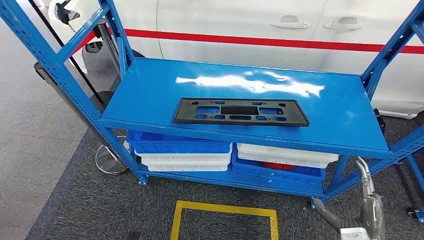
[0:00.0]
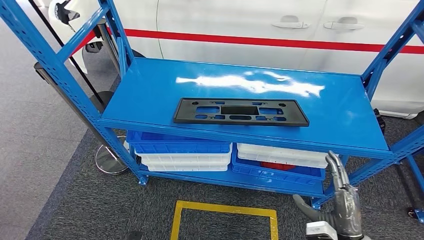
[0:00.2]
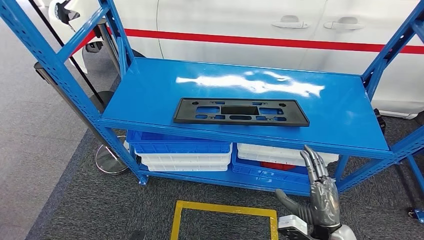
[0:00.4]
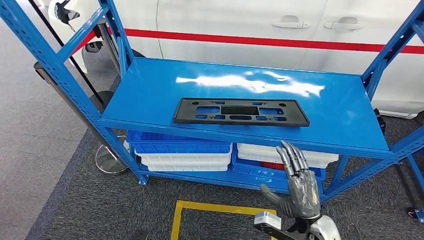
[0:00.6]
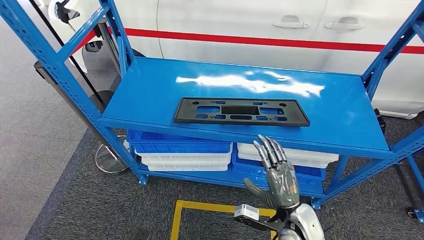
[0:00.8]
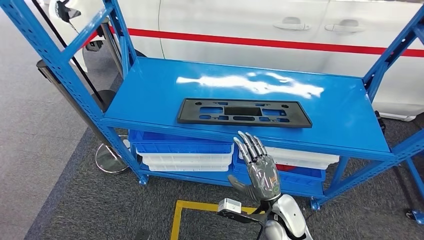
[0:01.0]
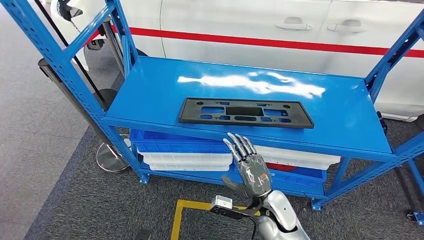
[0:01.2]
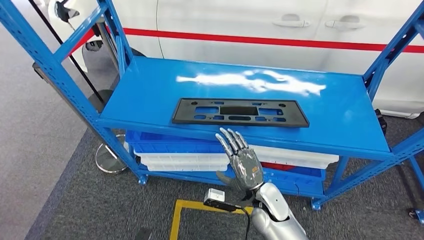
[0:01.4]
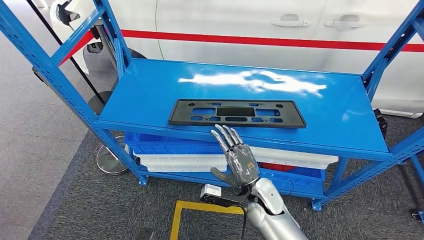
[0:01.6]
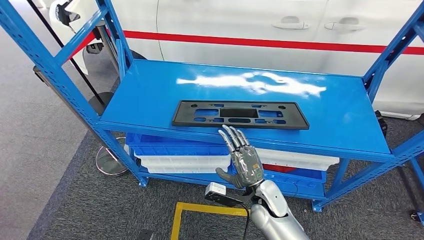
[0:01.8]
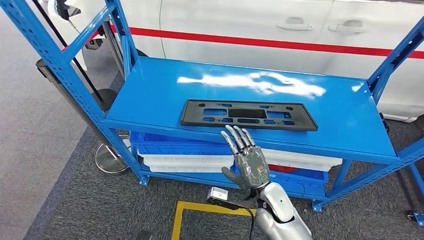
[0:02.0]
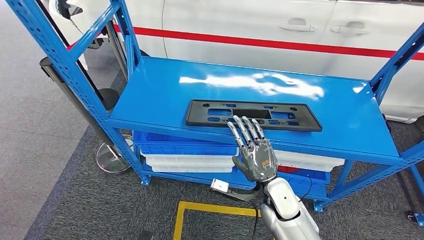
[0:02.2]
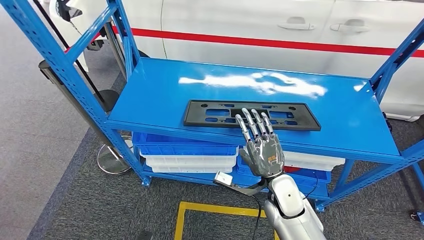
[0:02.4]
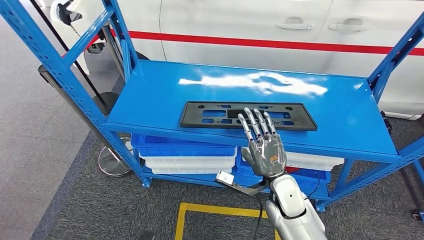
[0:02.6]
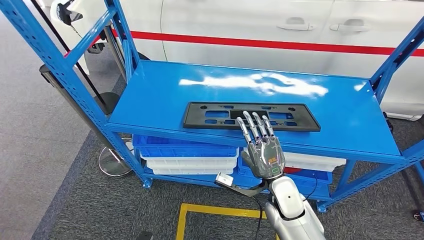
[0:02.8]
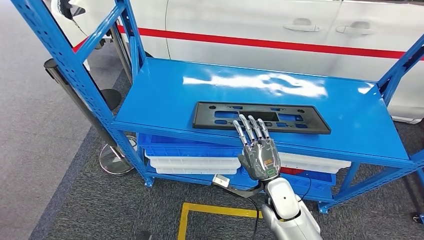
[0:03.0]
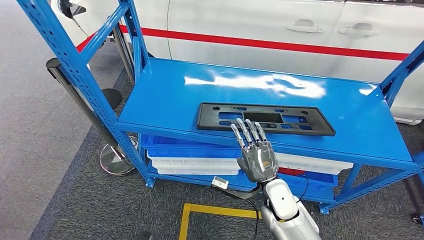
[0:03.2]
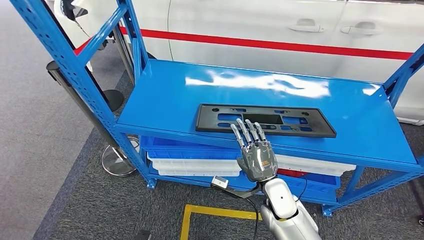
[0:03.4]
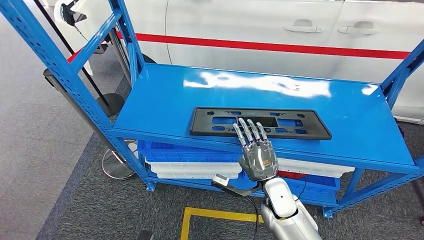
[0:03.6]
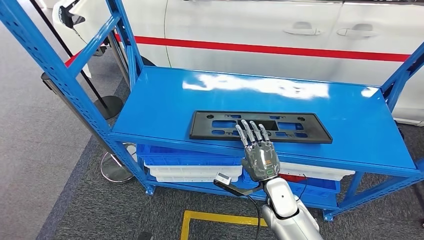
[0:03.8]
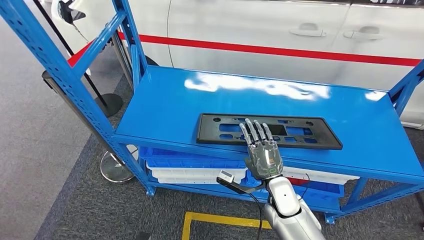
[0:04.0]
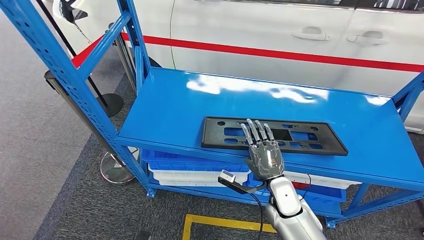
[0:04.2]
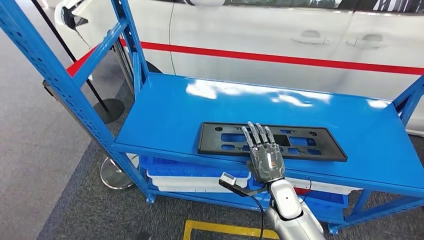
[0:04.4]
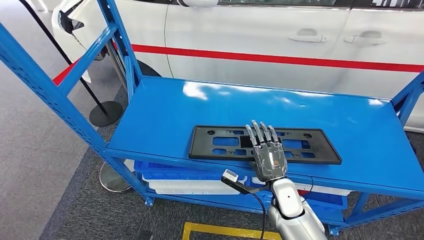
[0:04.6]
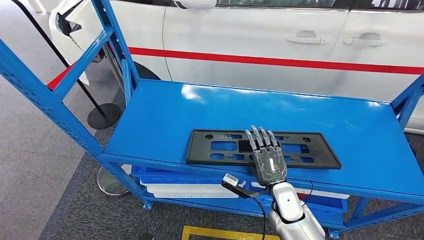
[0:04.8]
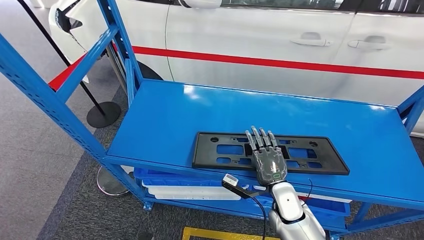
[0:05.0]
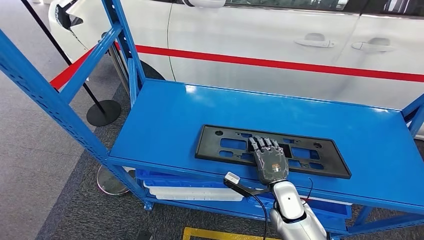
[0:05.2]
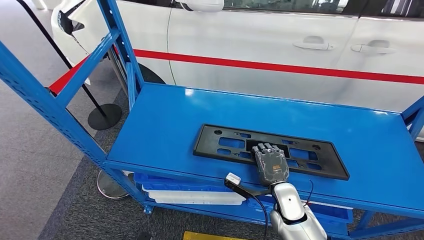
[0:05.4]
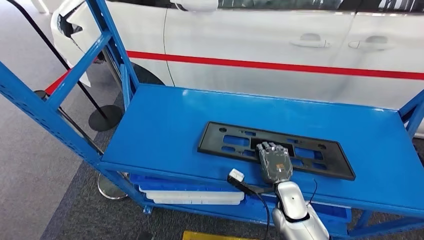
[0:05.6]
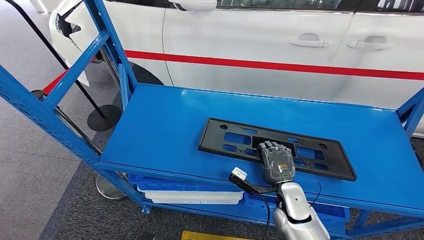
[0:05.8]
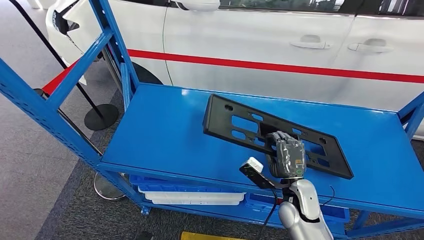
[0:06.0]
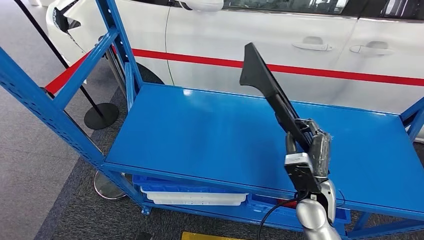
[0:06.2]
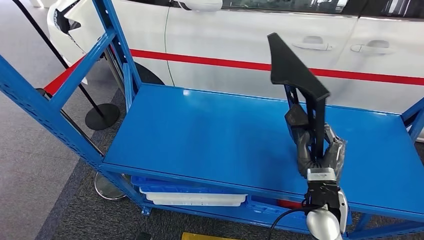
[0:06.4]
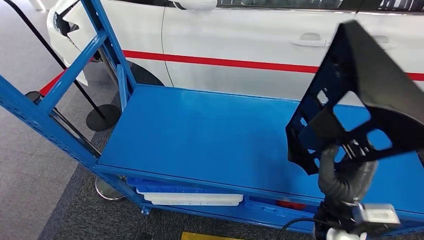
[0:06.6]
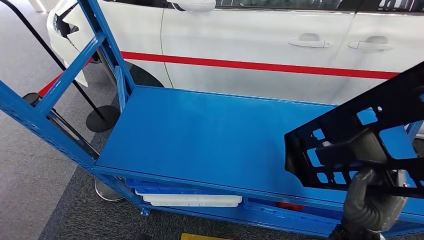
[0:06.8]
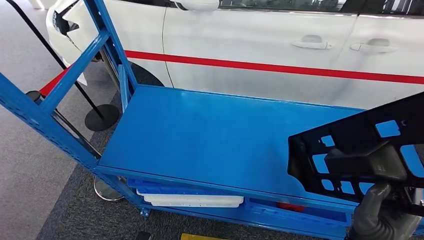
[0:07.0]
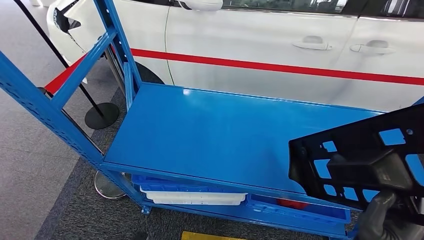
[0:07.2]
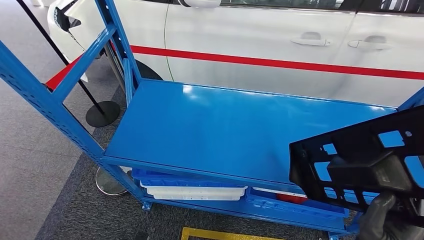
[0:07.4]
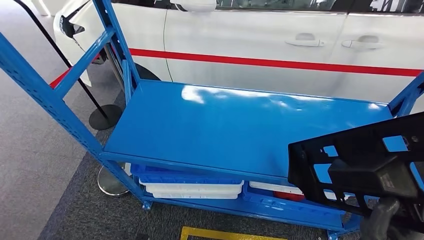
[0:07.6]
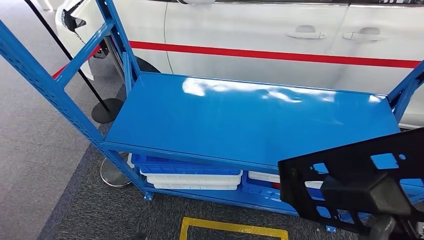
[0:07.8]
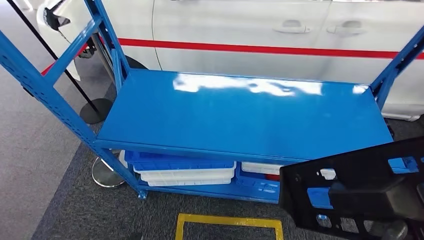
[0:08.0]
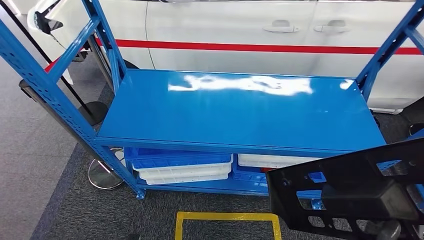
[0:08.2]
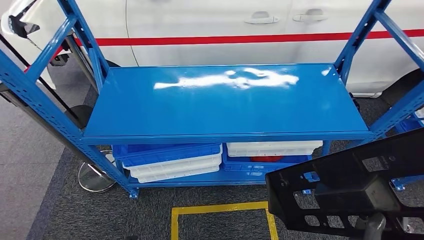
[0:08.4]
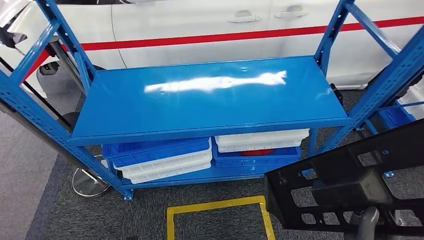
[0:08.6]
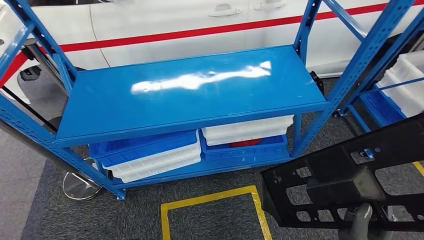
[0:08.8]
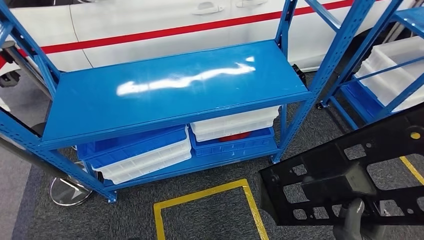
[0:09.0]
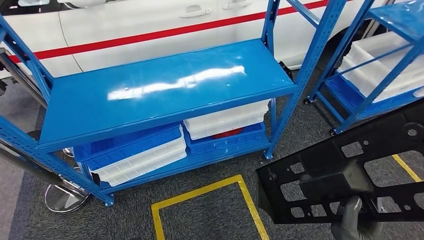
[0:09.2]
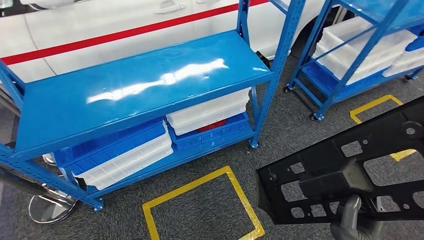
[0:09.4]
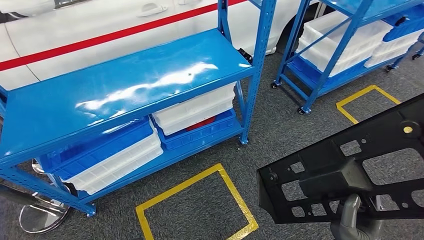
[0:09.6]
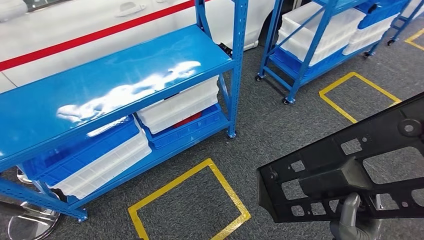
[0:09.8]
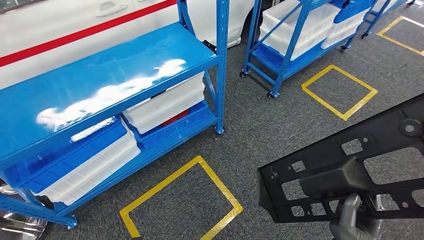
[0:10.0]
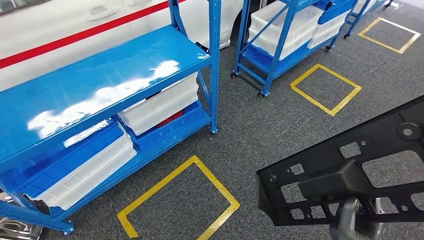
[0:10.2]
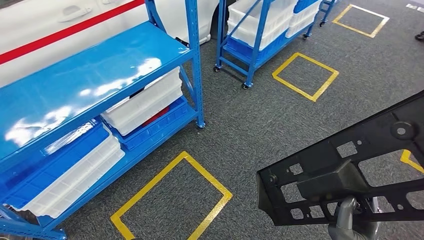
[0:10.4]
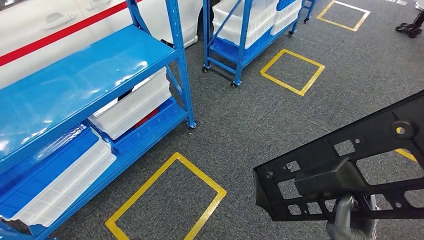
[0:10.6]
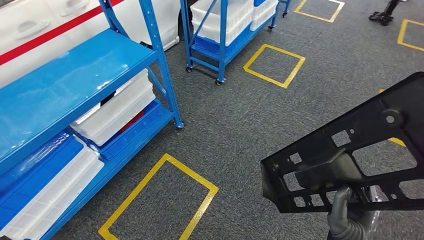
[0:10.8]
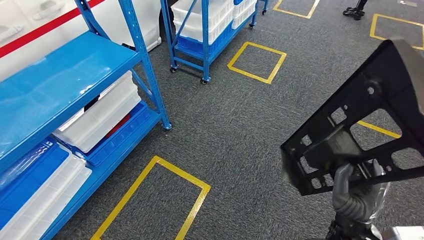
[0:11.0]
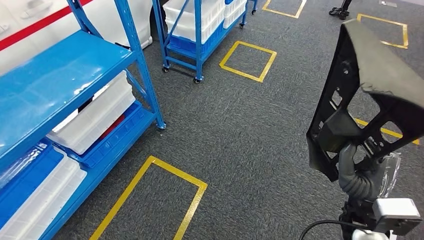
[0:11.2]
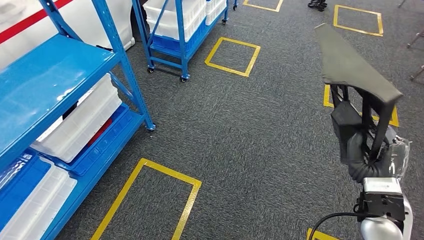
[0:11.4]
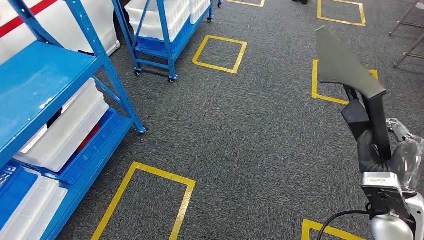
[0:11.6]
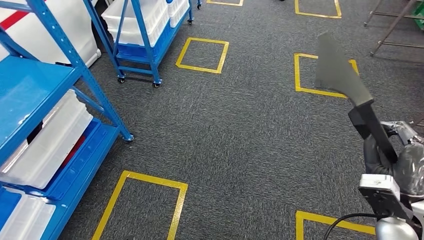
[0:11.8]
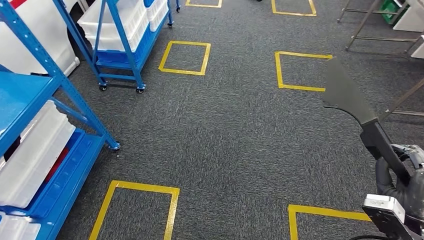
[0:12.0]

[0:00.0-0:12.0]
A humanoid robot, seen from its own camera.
Step, 0:00.0 to 0:09.6: Pick up the large parts from the shelf.

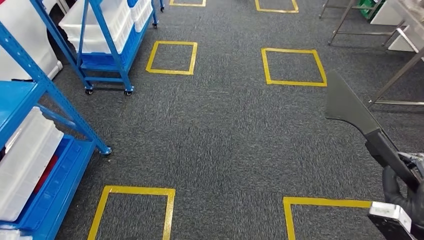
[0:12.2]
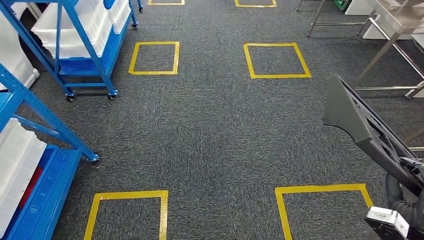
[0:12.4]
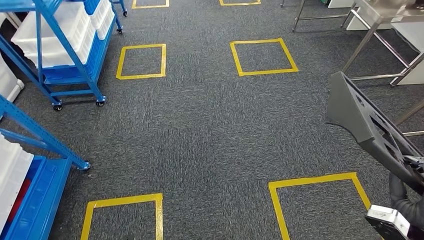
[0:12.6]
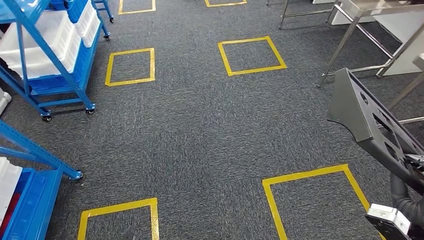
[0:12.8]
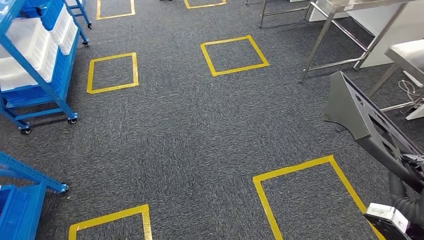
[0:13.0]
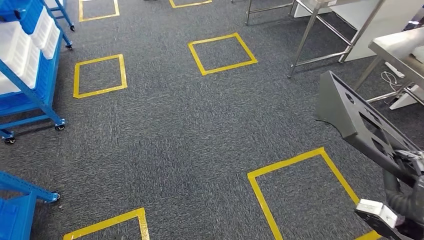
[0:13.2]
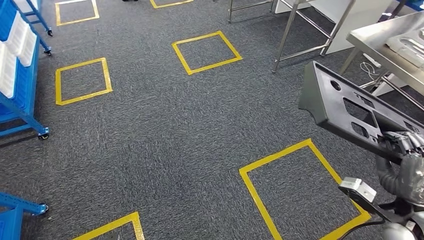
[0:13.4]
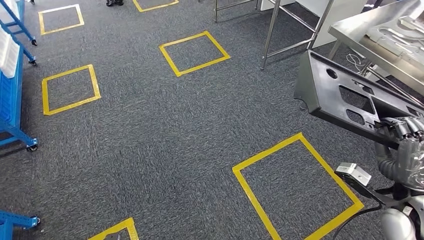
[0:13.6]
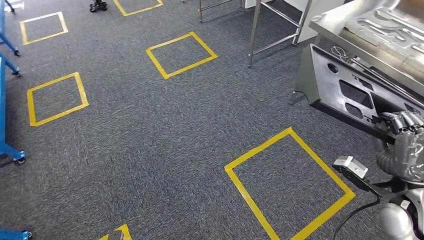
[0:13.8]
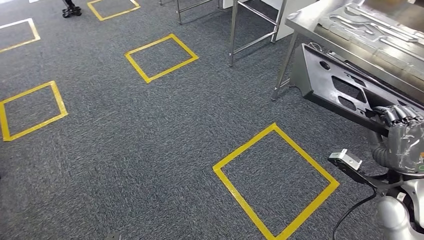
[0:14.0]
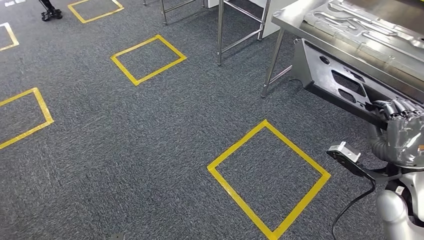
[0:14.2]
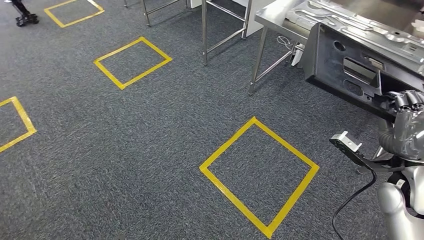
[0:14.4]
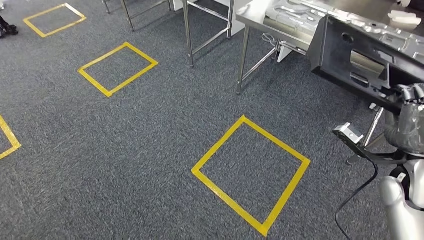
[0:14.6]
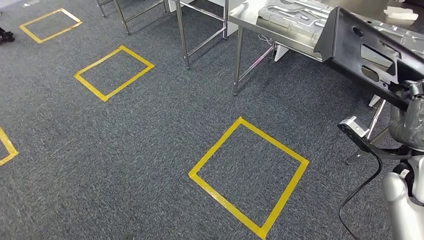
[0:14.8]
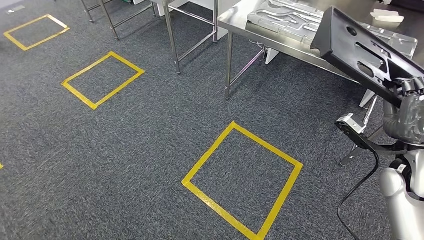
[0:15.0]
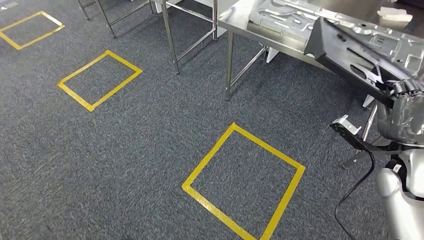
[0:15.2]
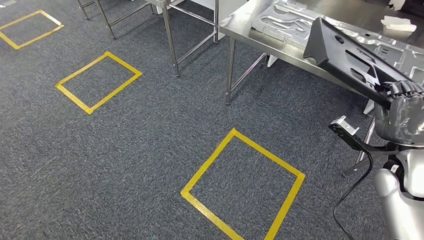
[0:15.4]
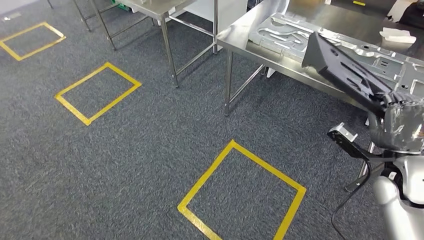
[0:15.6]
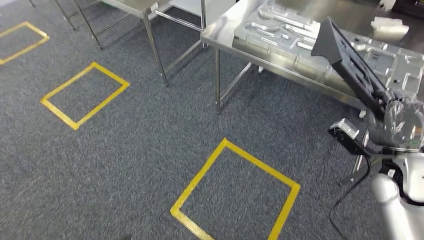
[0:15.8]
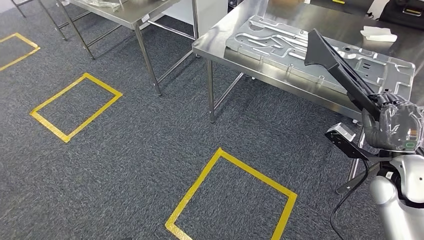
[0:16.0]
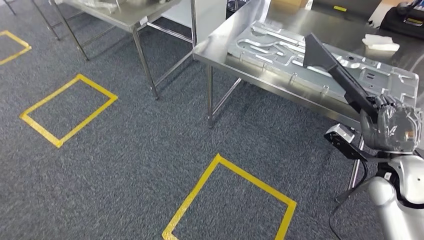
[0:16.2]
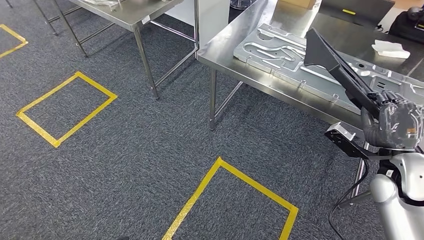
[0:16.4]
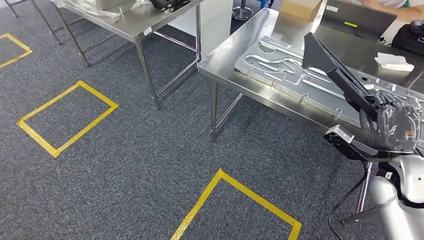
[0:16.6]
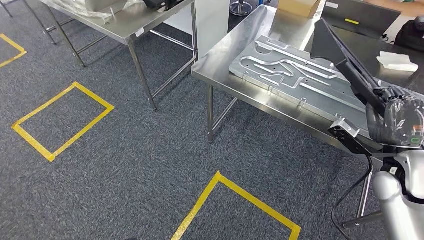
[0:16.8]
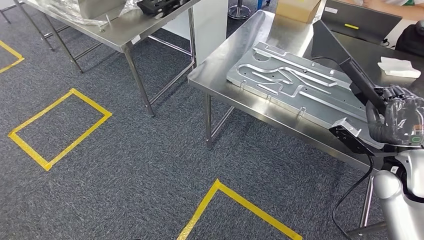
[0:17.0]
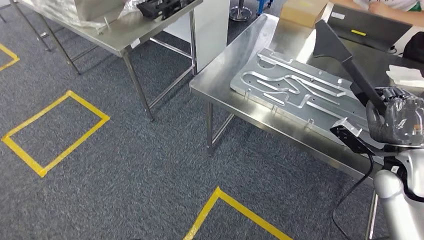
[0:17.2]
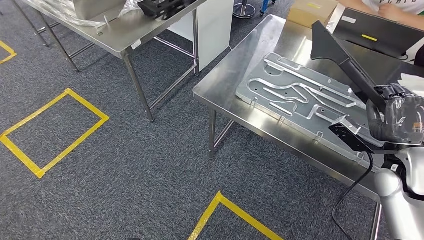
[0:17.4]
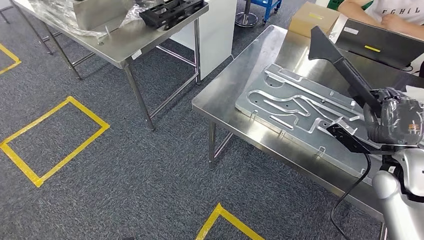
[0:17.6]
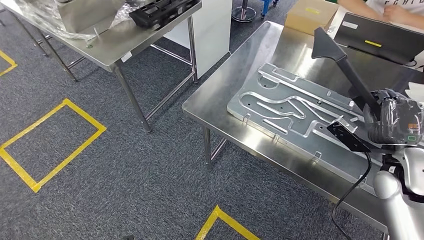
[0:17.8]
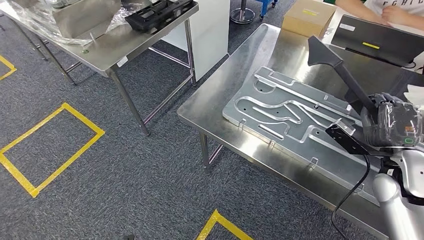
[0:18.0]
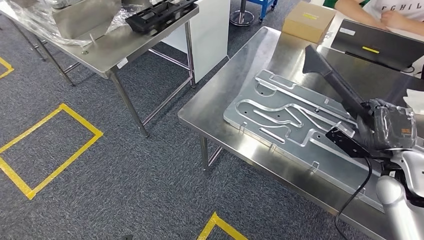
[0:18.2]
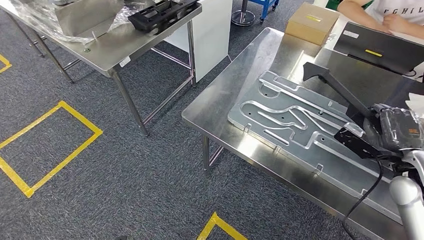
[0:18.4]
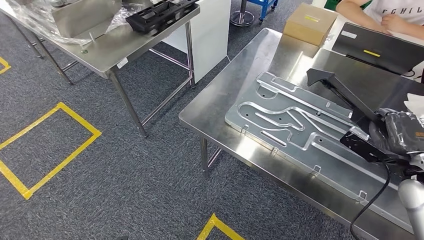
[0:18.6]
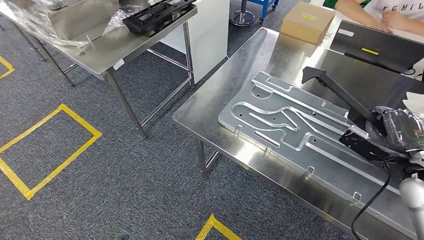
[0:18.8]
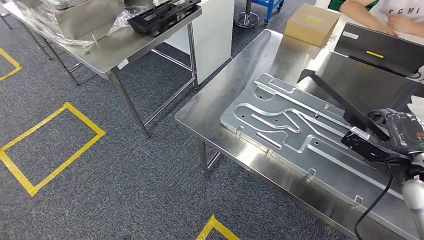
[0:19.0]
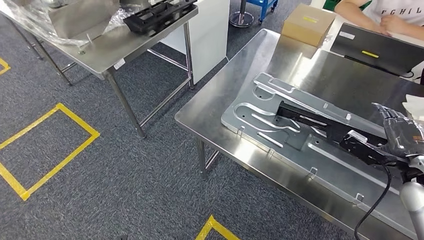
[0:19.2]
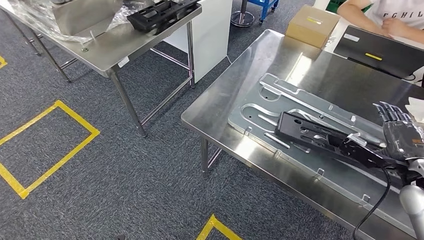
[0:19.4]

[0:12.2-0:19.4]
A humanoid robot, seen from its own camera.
Step, 0:12.2 to 0:17.0: Move the large parts to the workbench.
